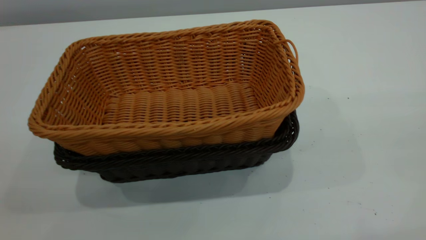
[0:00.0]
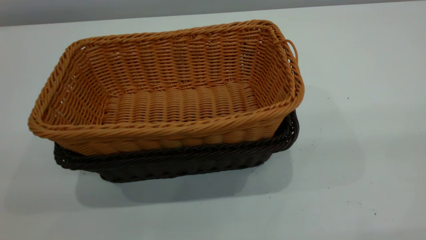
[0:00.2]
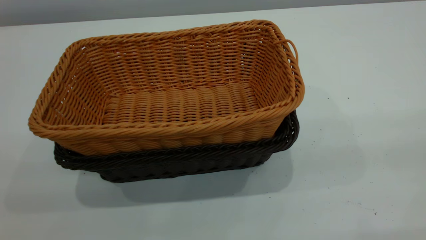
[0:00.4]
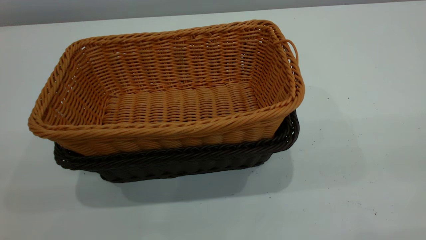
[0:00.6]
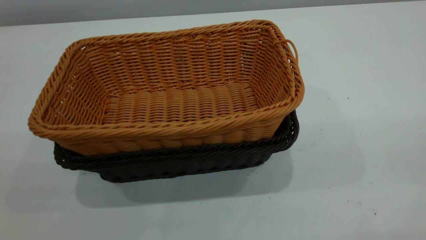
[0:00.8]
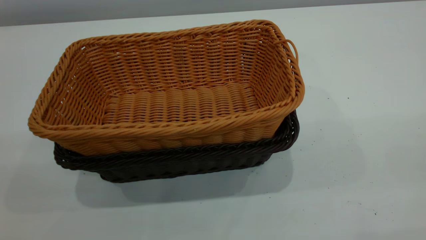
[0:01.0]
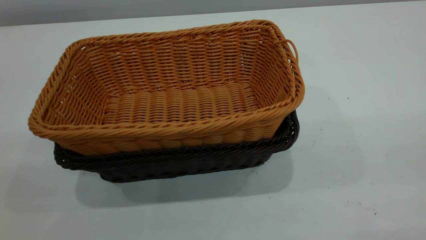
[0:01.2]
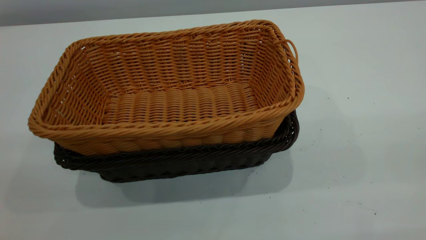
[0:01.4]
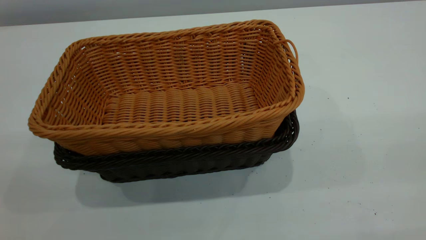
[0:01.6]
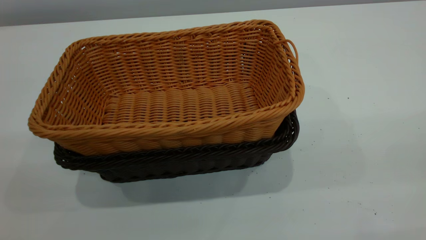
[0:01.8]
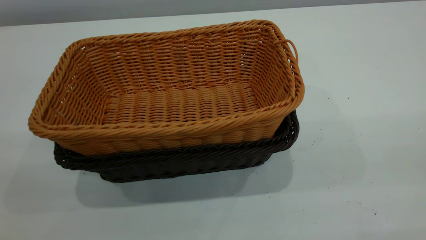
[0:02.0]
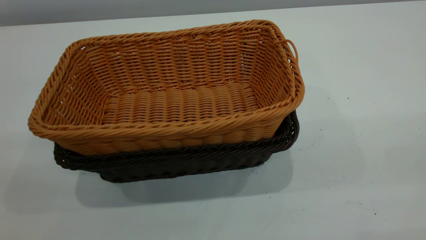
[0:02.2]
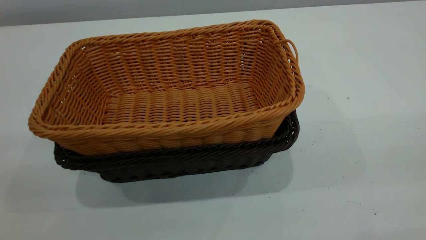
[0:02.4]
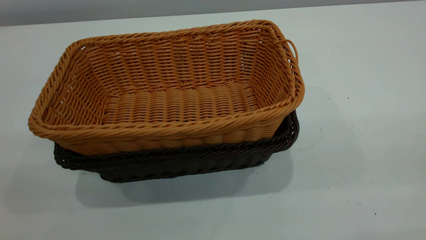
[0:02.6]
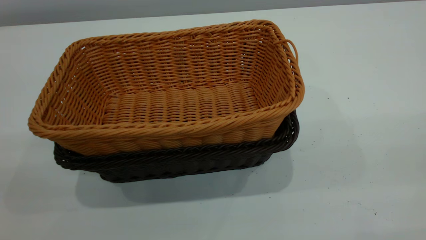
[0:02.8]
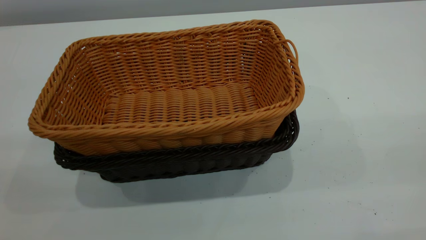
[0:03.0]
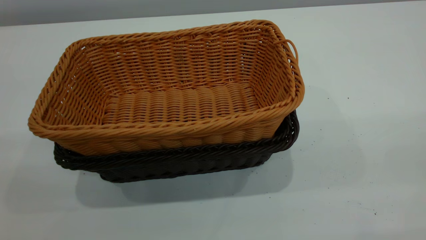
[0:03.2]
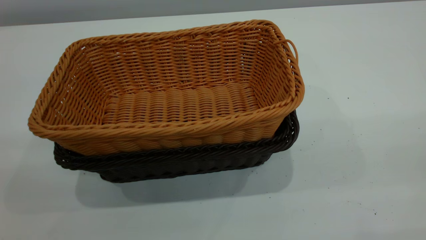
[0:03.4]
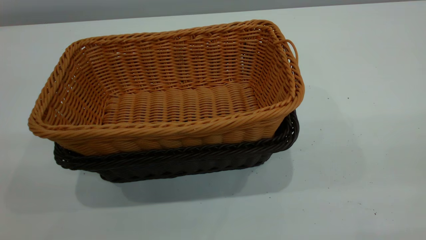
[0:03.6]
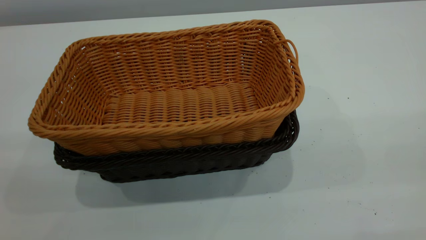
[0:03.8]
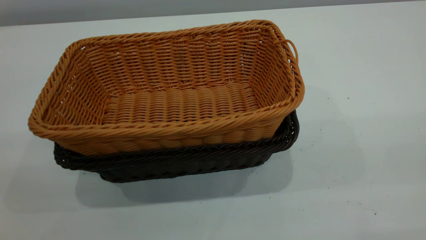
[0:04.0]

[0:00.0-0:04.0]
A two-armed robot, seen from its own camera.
Task of the whole recording: the left gripper grasp the black basket and place it in the center of the table, the right gripper grasp the brown basket and place it inside the black one.
0:01.4 to 0:04.0: Neither gripper changes place.
